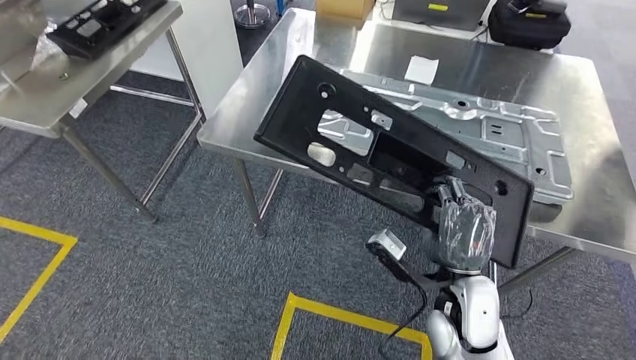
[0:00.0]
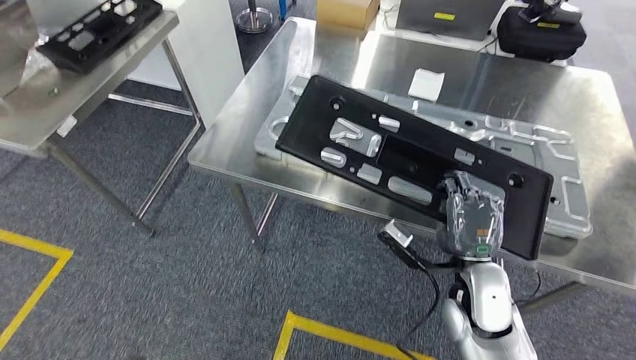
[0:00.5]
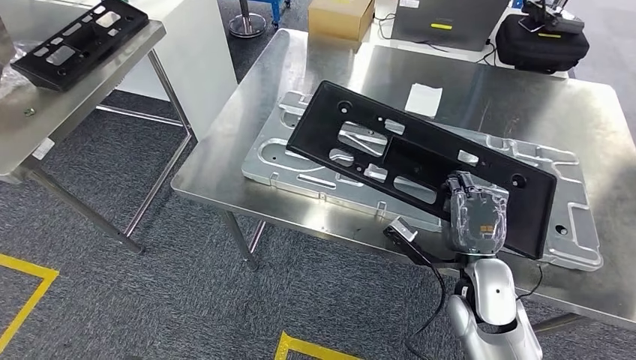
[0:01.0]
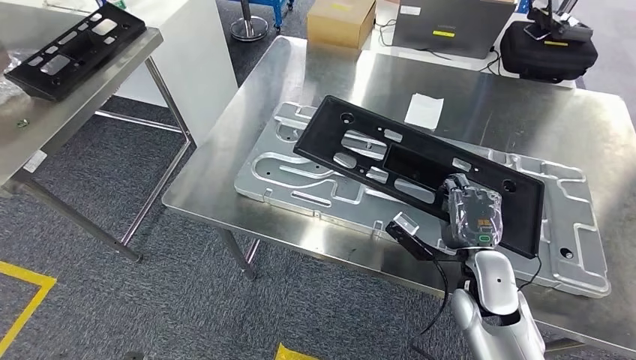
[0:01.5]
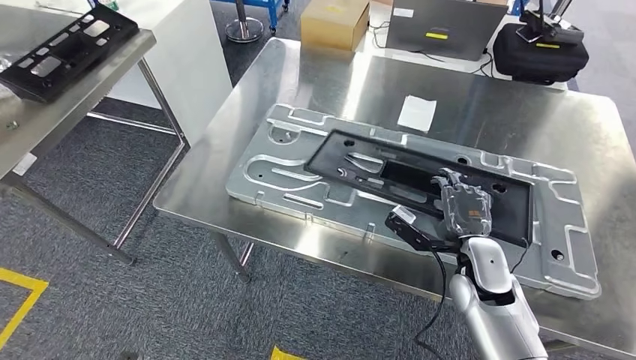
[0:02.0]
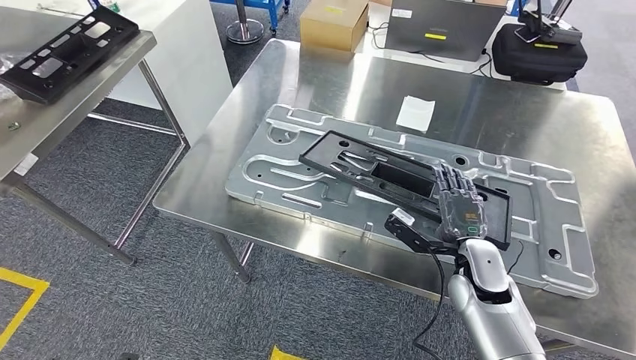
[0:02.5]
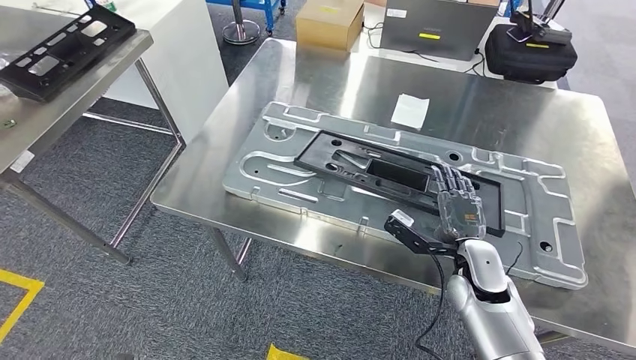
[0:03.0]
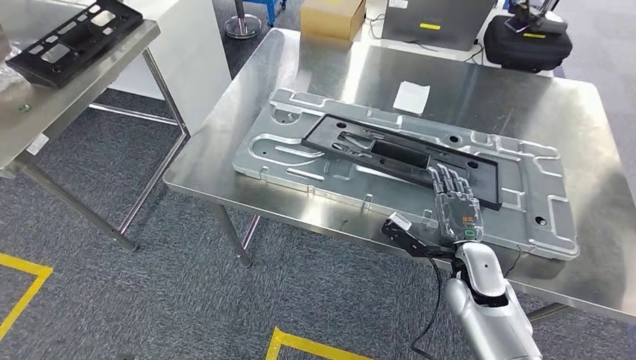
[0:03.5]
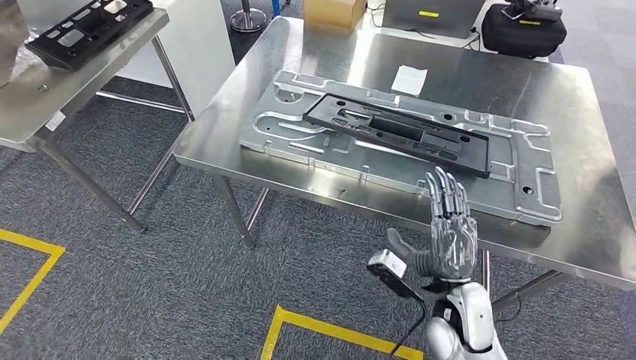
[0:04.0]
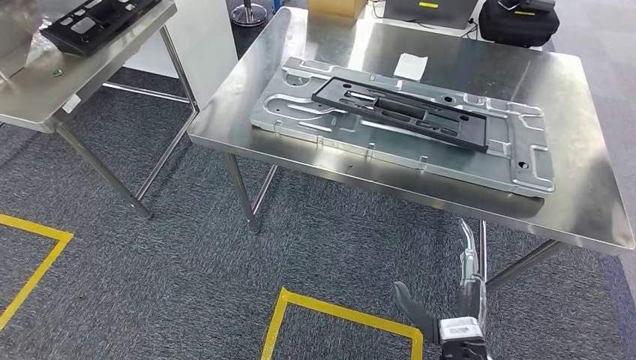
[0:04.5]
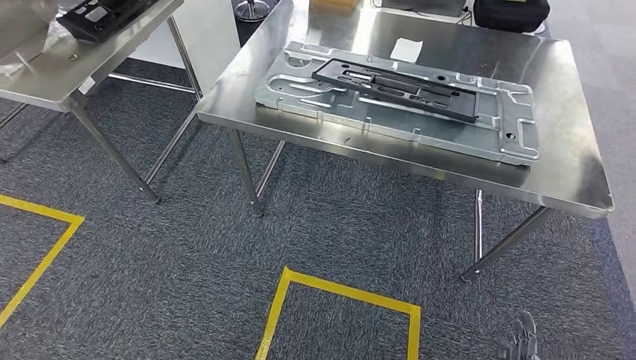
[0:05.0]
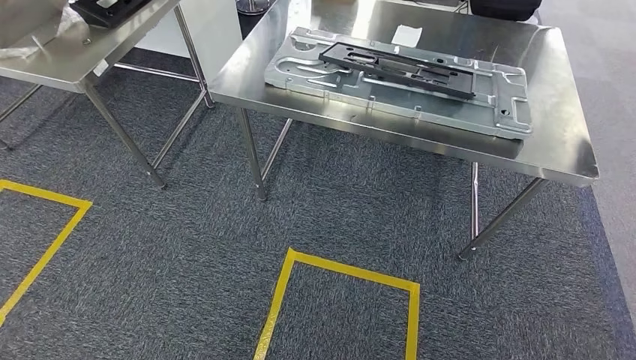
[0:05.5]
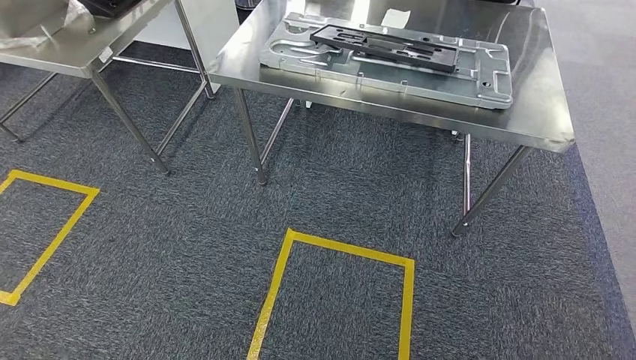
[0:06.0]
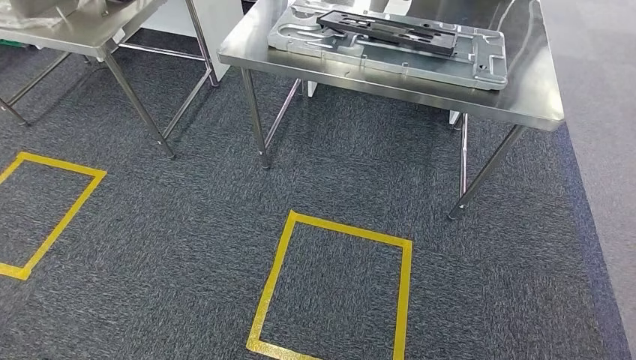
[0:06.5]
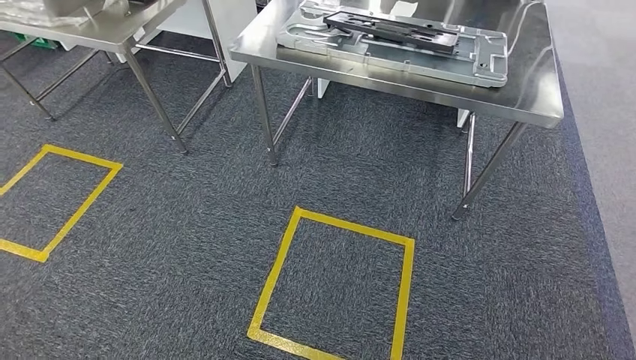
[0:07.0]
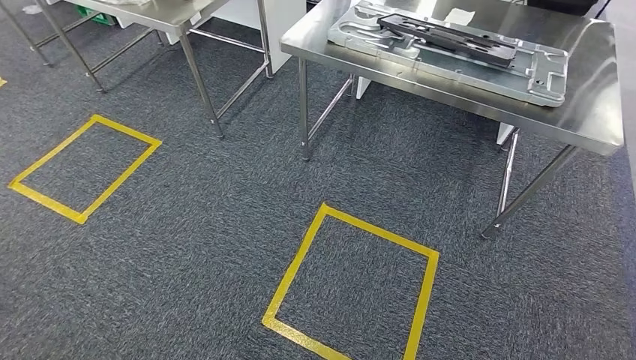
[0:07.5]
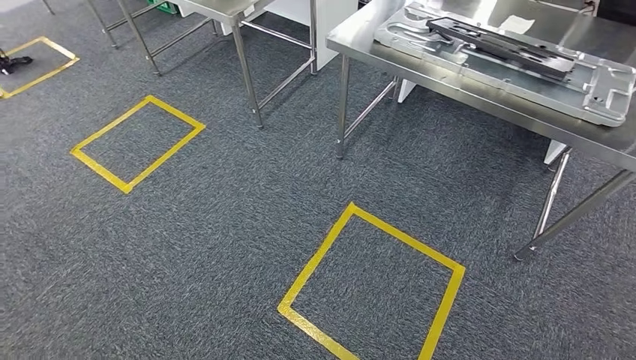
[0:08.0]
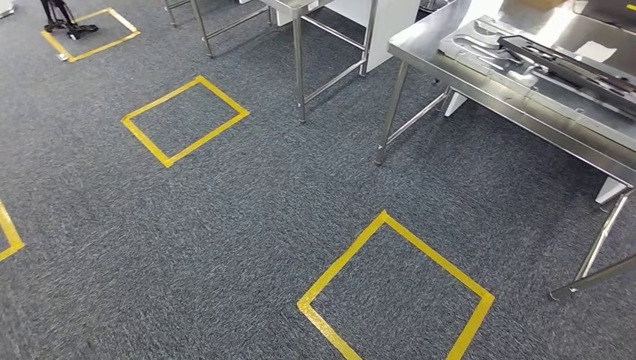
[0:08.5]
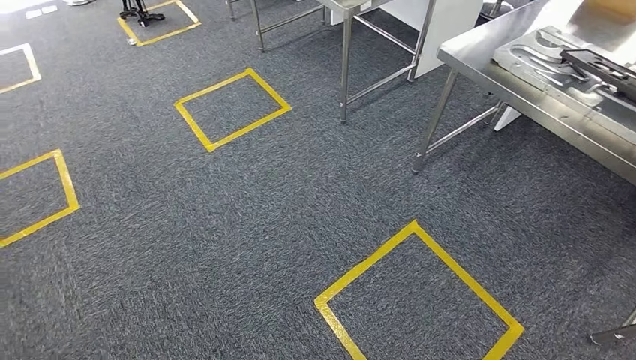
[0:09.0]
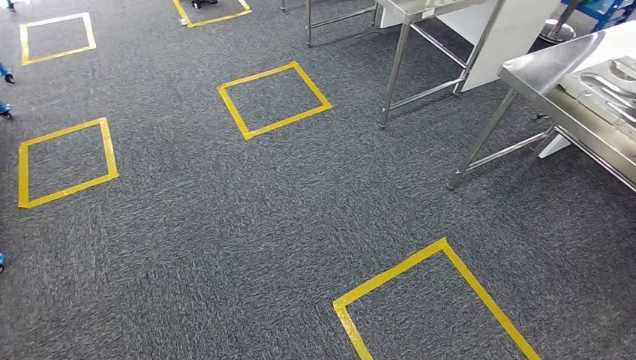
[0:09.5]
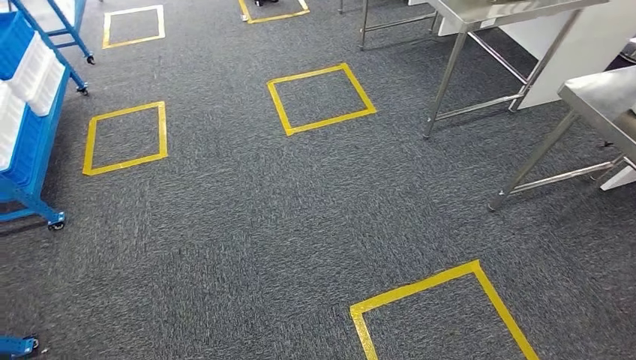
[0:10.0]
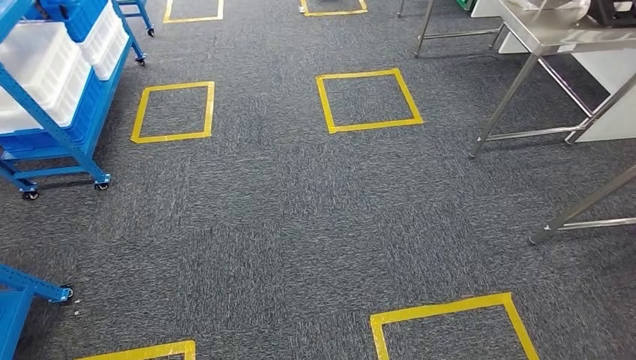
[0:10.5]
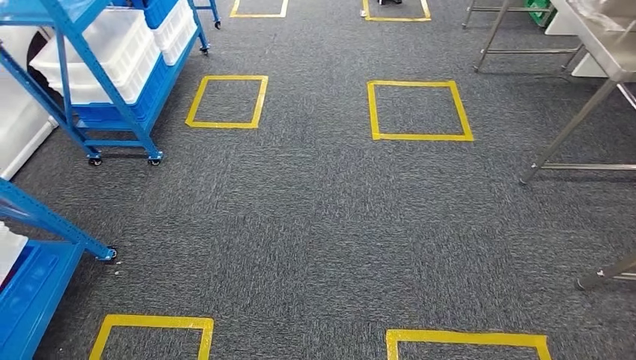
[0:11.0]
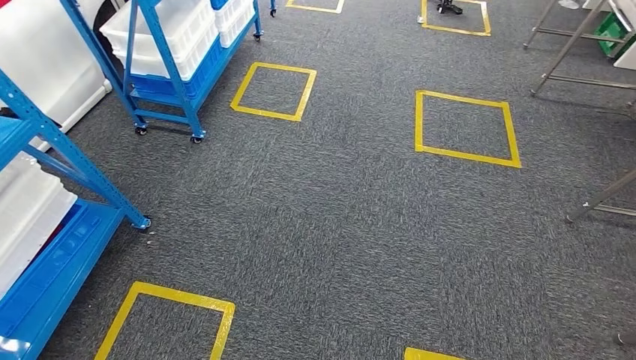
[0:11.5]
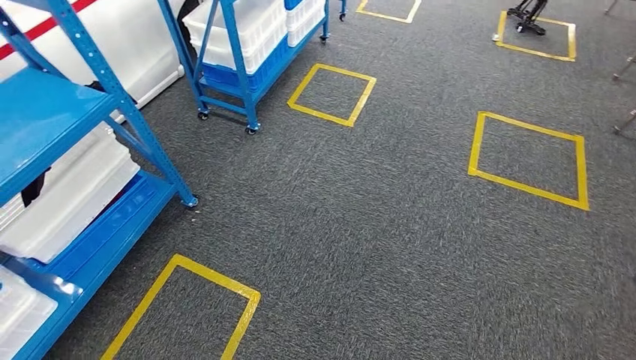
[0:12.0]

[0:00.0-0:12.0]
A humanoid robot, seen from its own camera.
Step, 0:00.0 to 0:07.5: Insert the large material into the corresponding slot on the workbench.

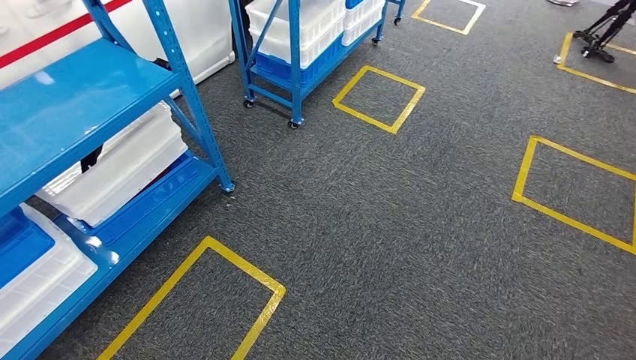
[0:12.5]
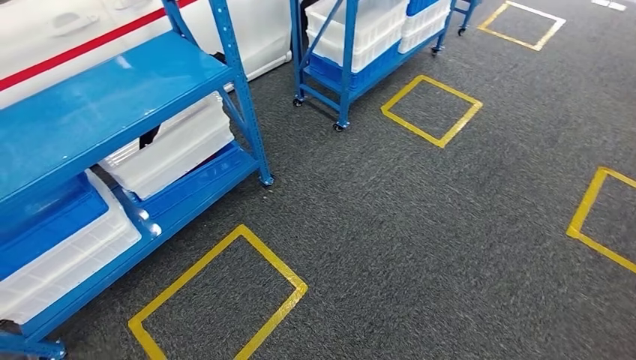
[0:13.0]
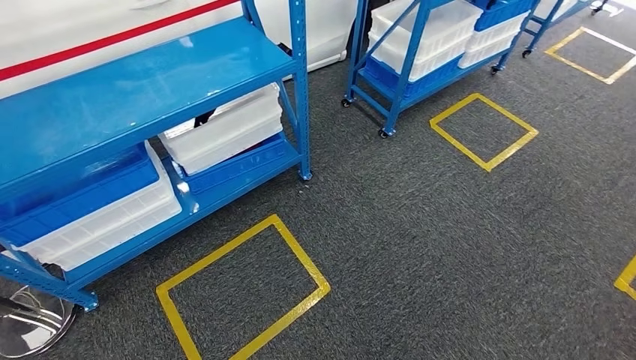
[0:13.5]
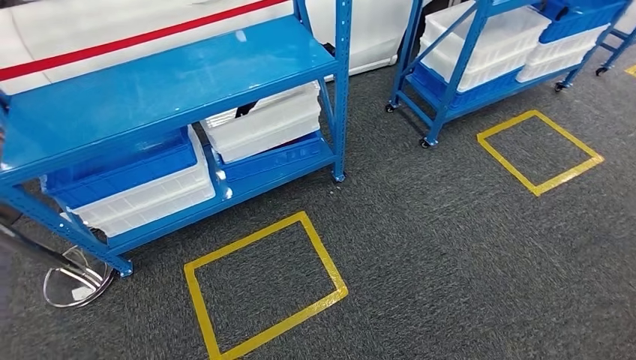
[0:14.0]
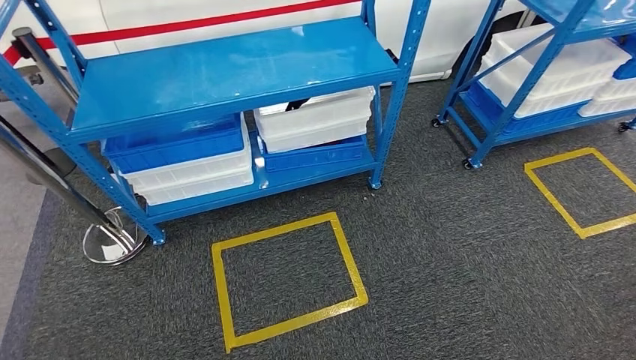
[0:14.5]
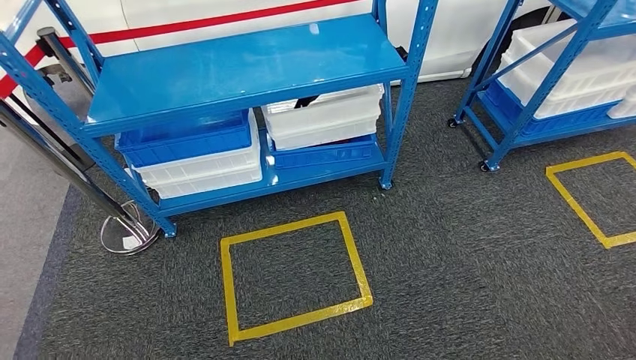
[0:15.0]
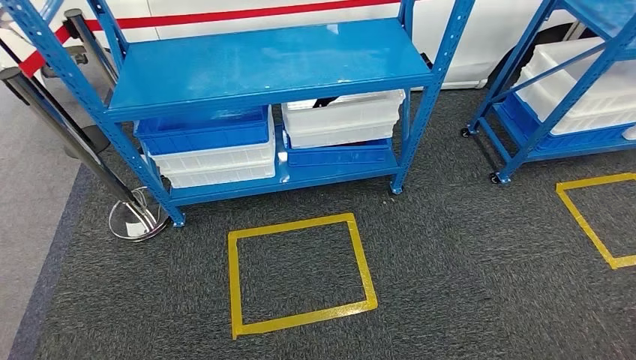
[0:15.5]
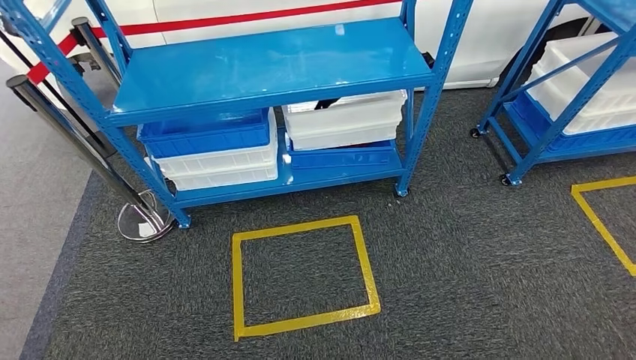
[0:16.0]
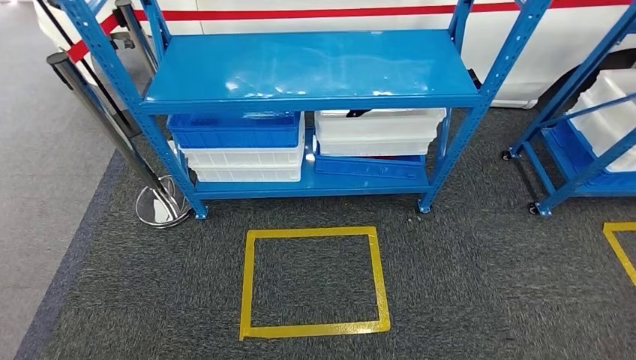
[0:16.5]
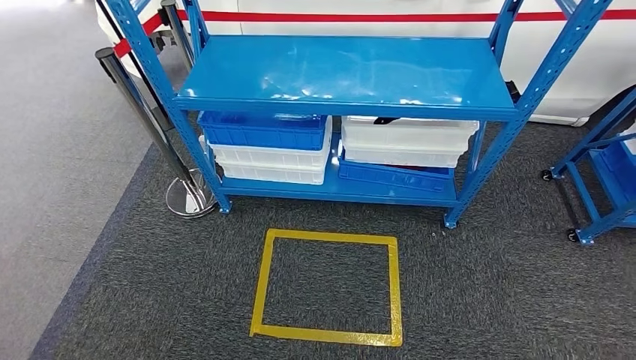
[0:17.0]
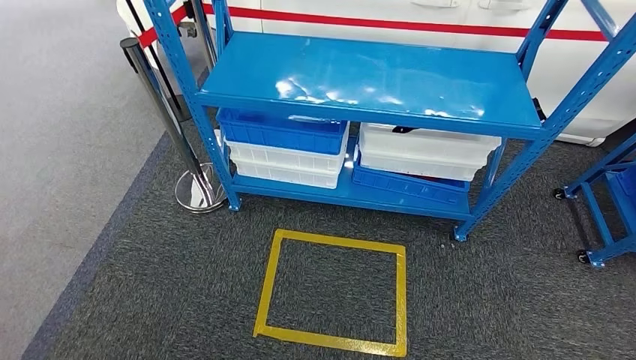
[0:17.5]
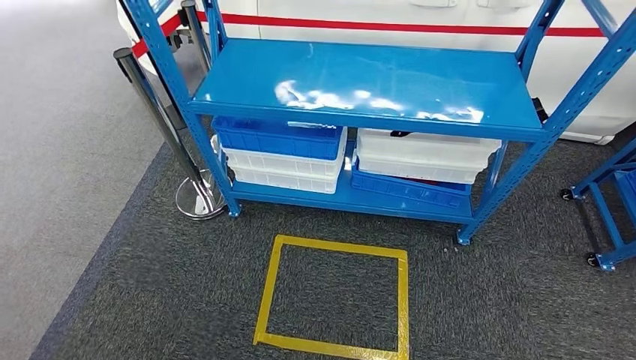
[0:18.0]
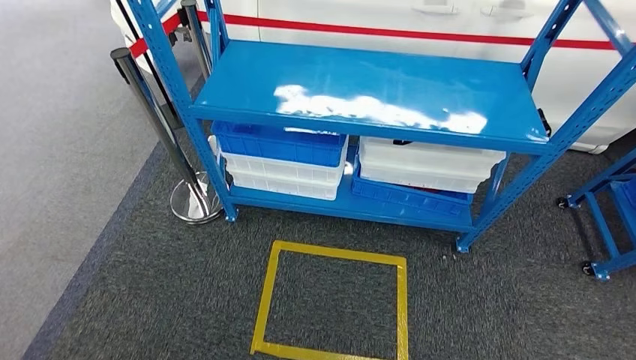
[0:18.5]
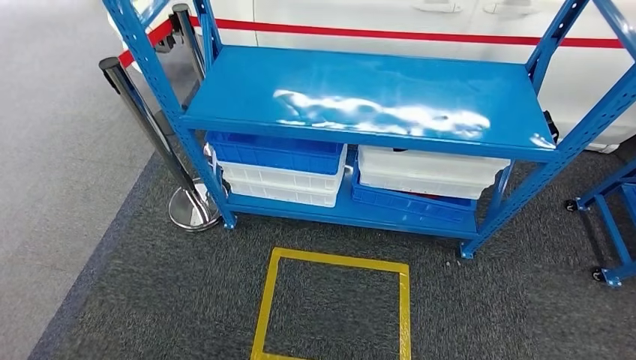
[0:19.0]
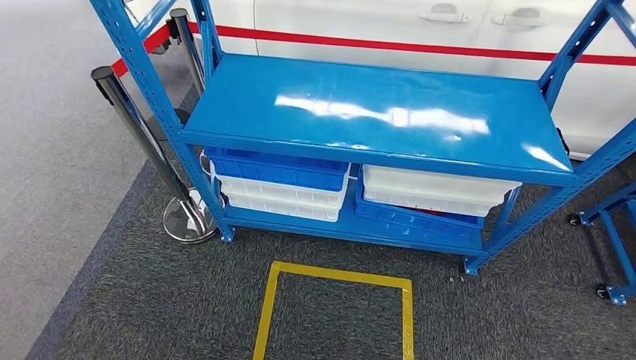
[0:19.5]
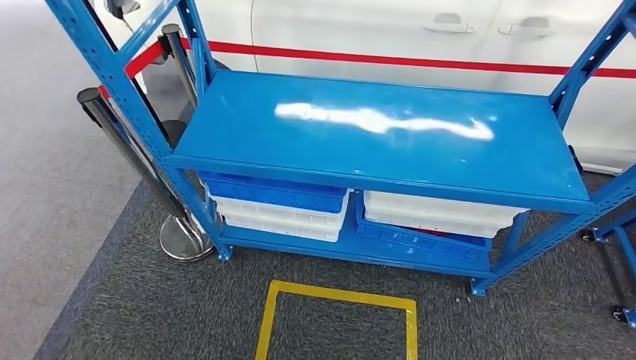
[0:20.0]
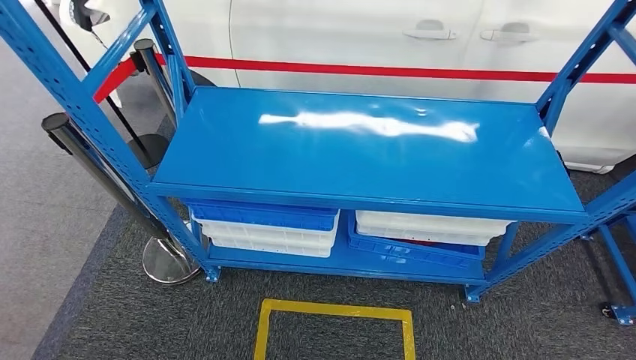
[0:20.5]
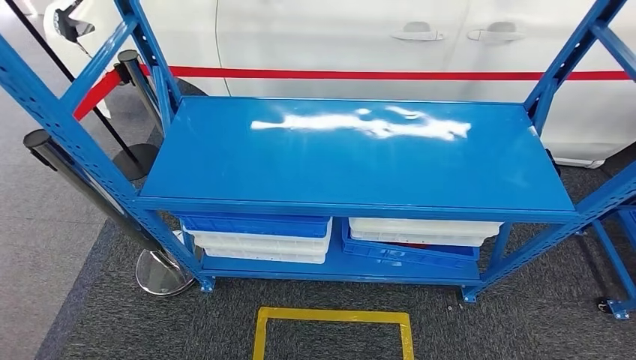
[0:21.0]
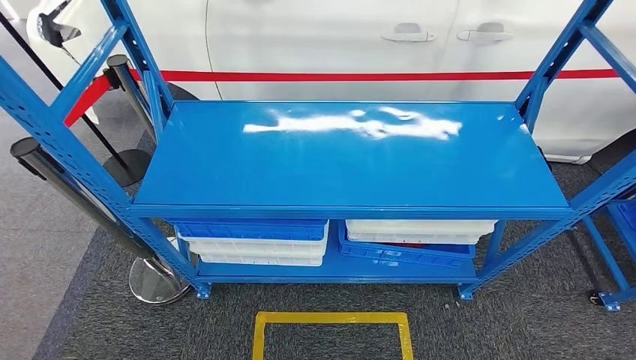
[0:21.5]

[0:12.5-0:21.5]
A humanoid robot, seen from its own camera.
Step, 0:12.5 to 0:21.5: Move to the initial position of the shelf.
